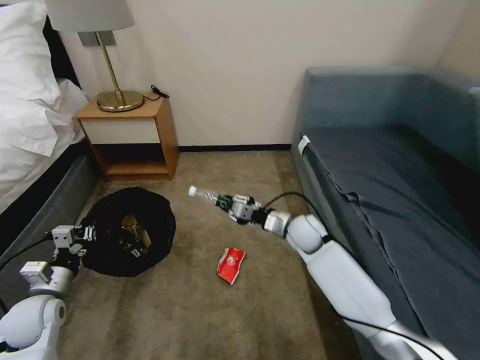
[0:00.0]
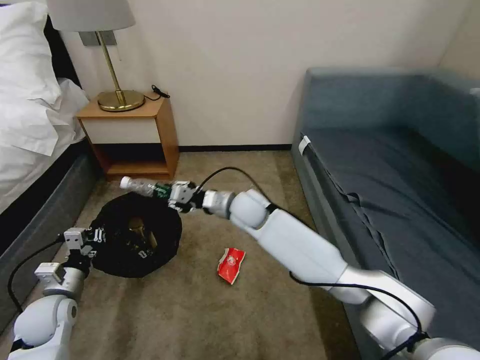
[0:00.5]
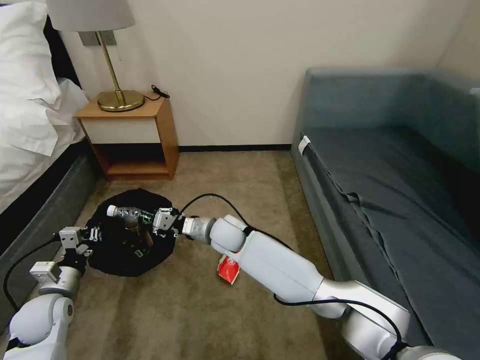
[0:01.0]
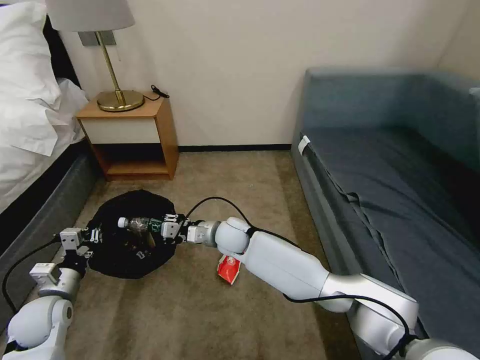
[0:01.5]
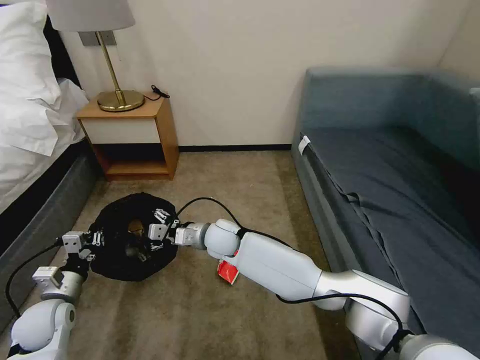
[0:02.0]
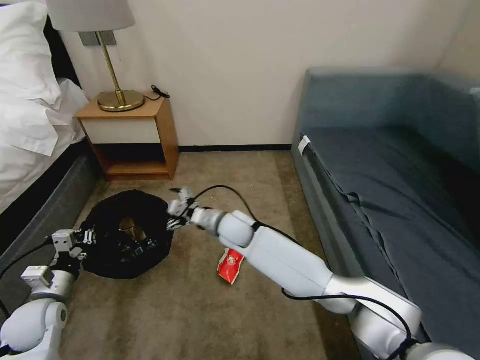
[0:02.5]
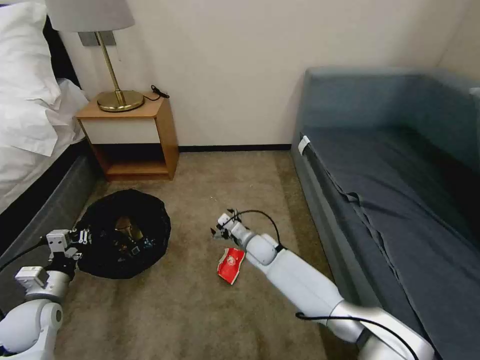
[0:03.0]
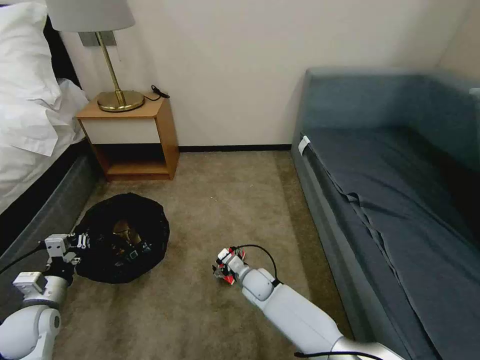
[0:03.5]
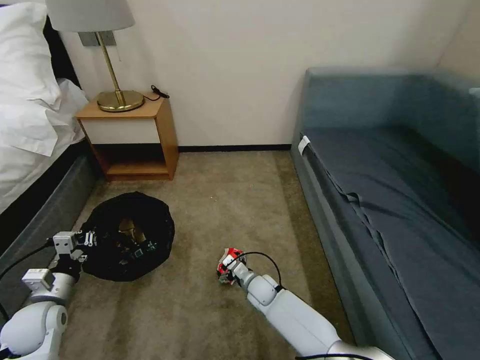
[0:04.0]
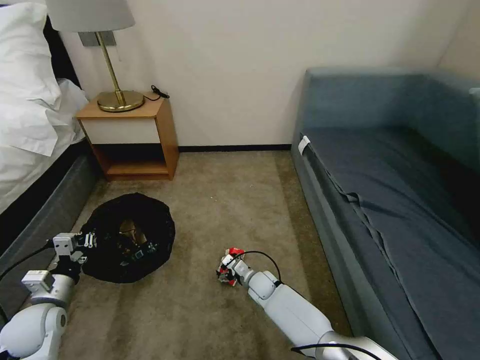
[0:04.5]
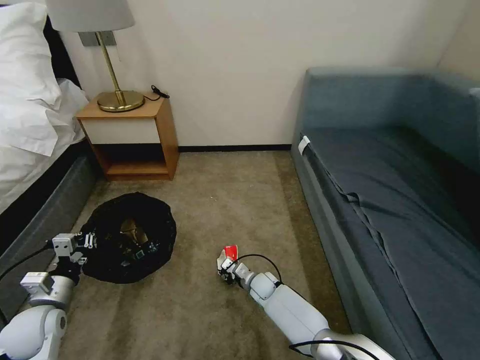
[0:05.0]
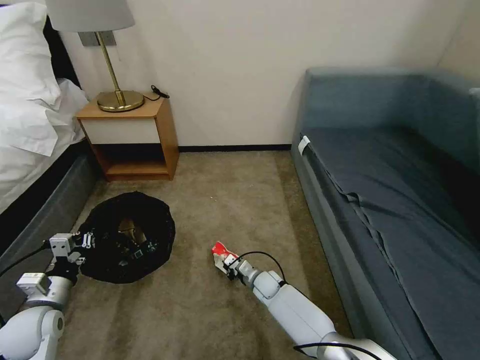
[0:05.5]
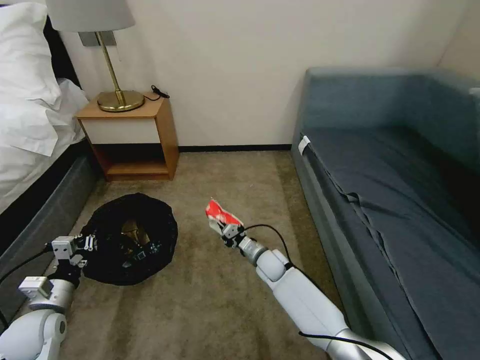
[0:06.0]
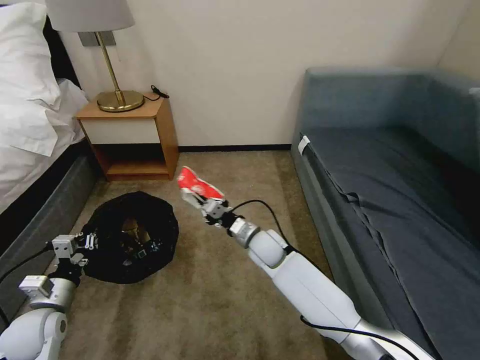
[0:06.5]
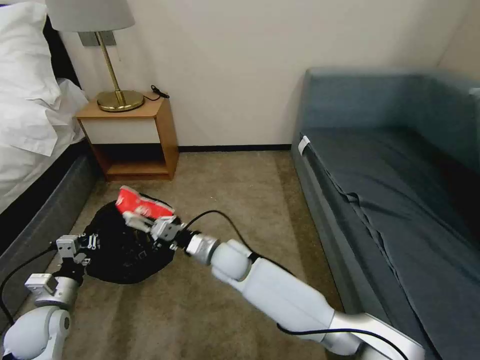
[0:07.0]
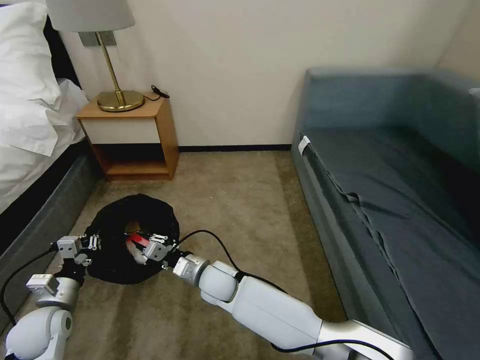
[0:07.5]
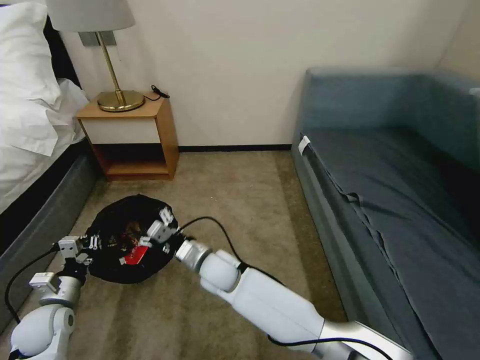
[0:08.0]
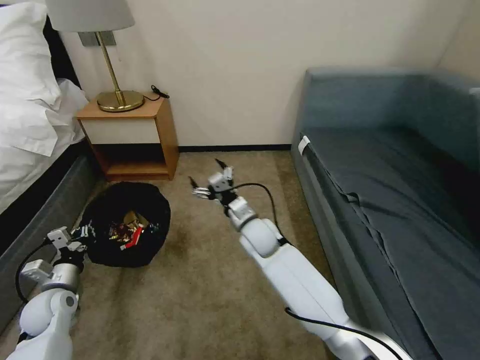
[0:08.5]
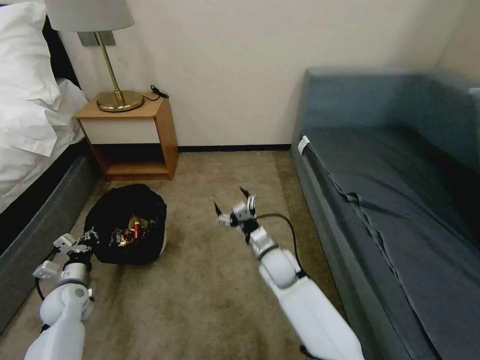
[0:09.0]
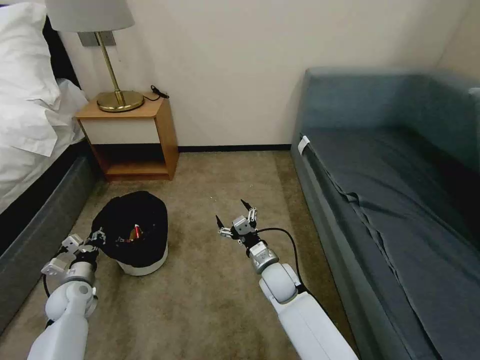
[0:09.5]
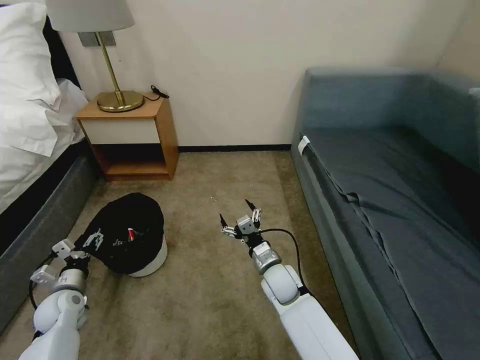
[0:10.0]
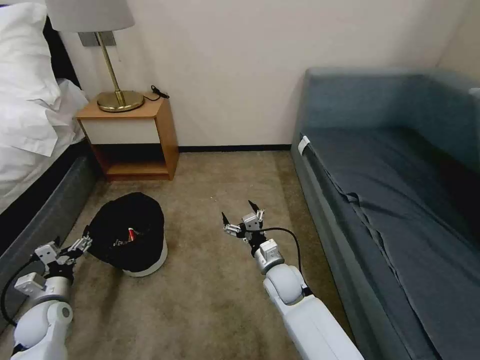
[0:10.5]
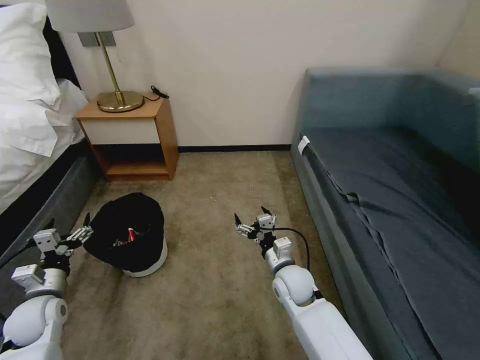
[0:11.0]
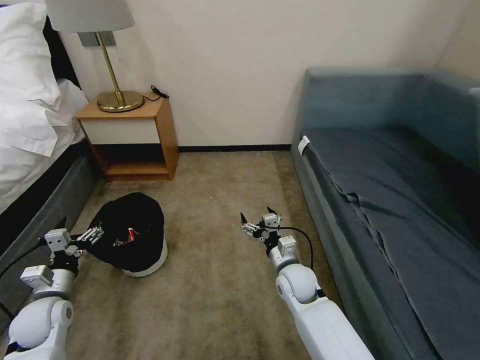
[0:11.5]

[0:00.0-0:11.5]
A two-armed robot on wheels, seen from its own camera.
Task of the whole recording: Pick up the trash bin, then pick up the garbage on the floor and place it into the trash bin.
0:00.0 to 0:02.0: The right gripper is displaced to the left by about 20 cm, and opens its fingers.
0:02.0 to 0:04.0: The right gripper heads downward and to the right, covering about 25 cm.
0:04.0 to 0:06.0: The right gripper goes approximately 10 cm upward and forward, and closes up.
0:06.0 to 0:07.5: The right gripper travels to the left, backward and upward by some 20 cm.
0:07.5 to 0:09.5: The right gripper is displaced to the right by roughly 15 cm, and opens its fingers. Meanwhile the left gripper goes roughly 10 cm forward and downward.
0:09.5 to 0:11.5: The left gripper heads upward and backward, covering about 10 cm, and opens up.

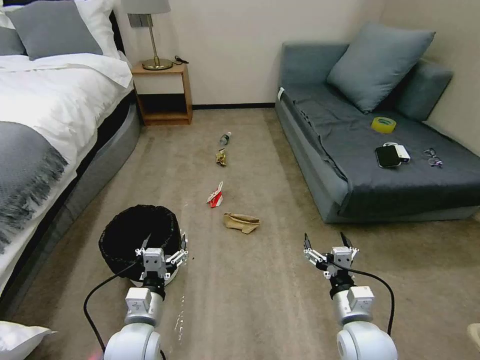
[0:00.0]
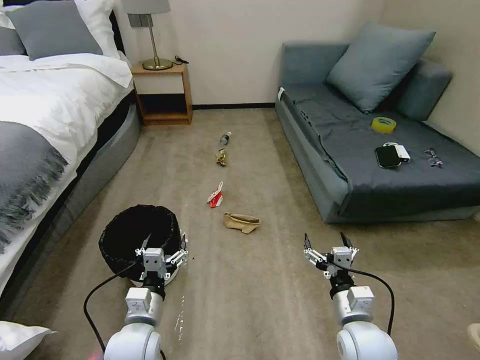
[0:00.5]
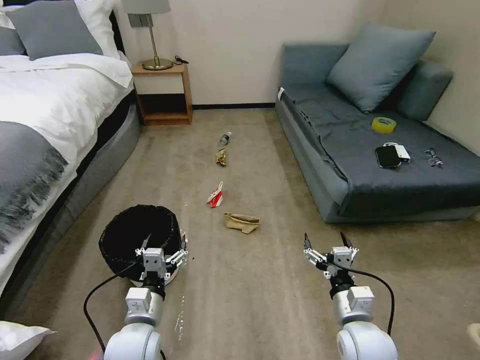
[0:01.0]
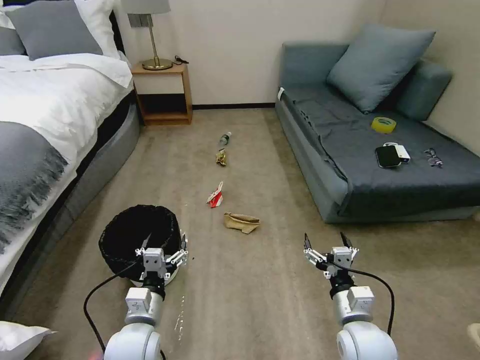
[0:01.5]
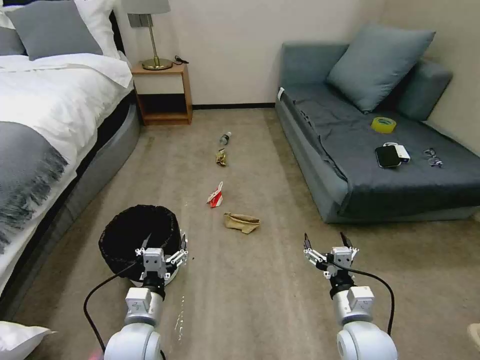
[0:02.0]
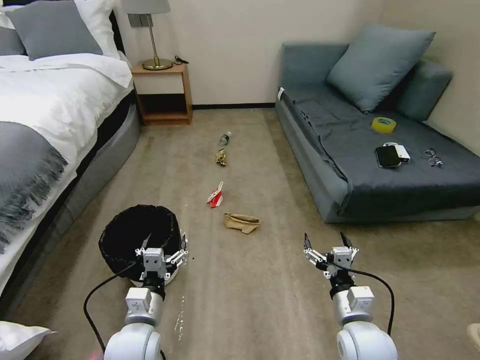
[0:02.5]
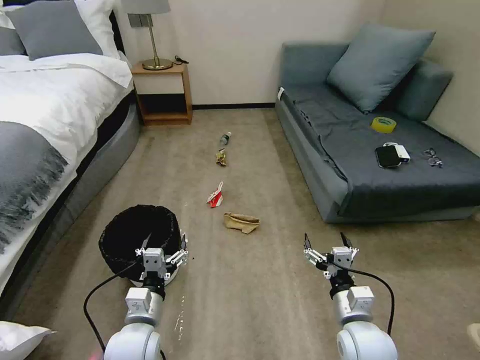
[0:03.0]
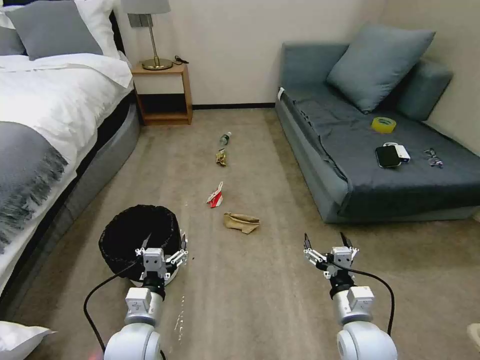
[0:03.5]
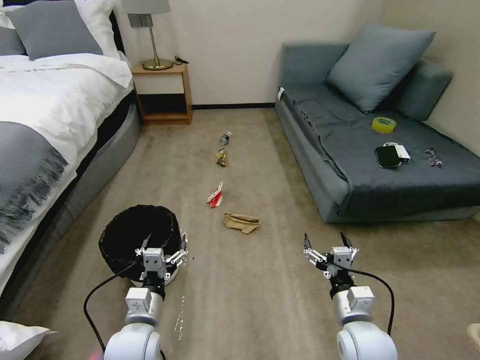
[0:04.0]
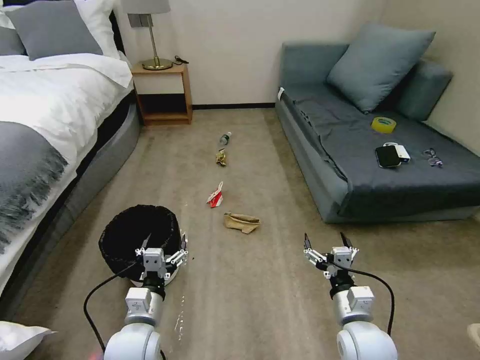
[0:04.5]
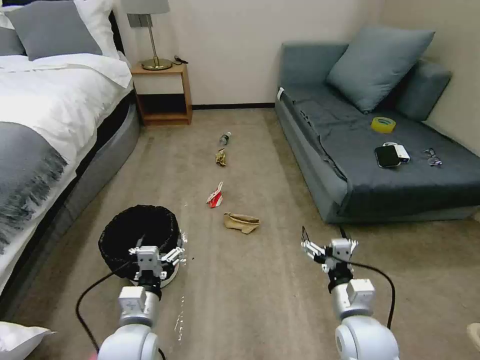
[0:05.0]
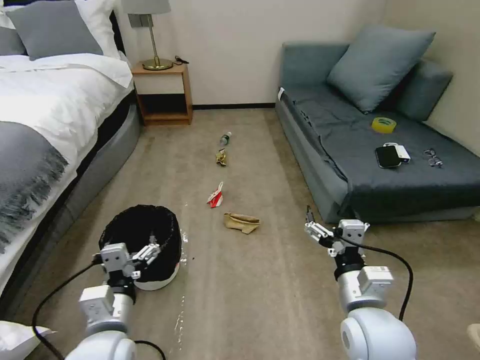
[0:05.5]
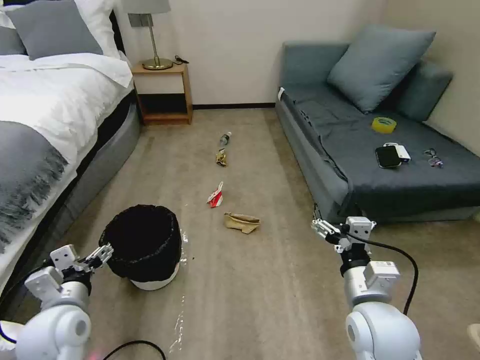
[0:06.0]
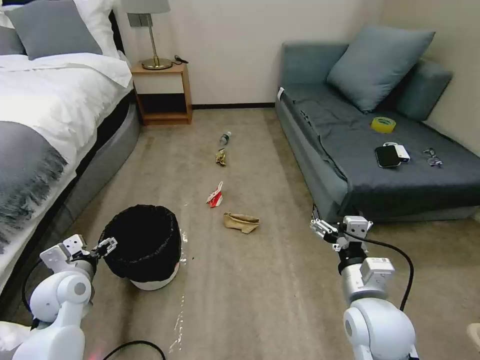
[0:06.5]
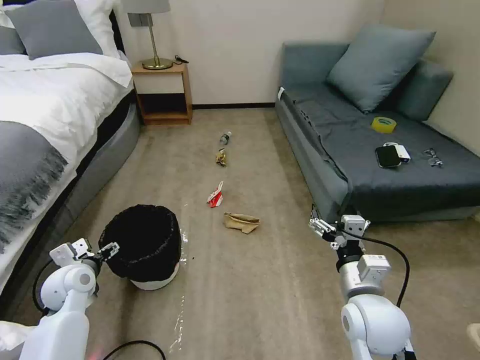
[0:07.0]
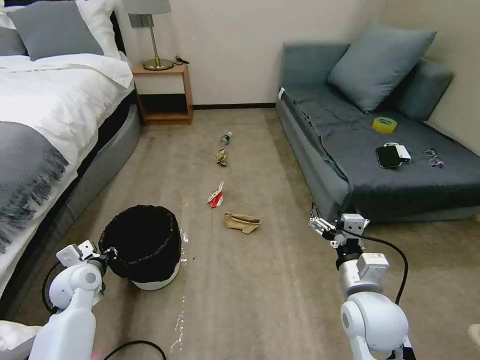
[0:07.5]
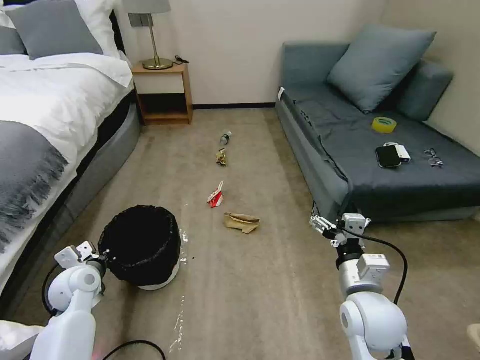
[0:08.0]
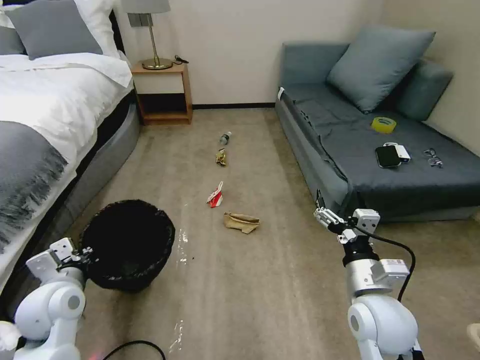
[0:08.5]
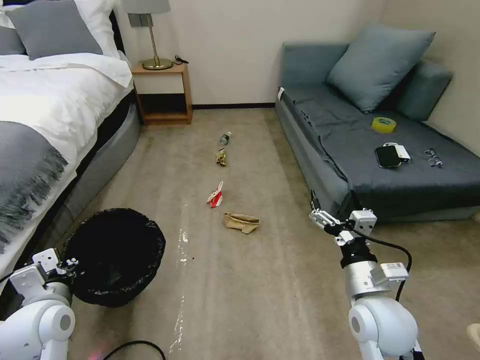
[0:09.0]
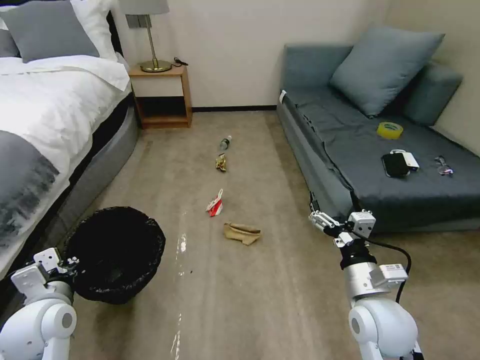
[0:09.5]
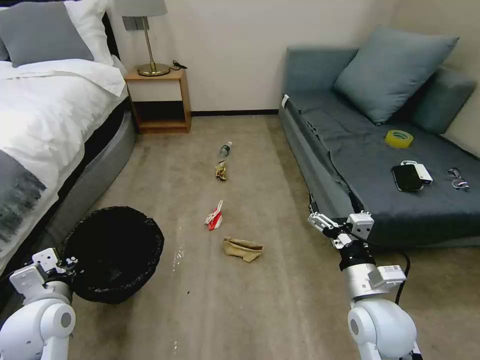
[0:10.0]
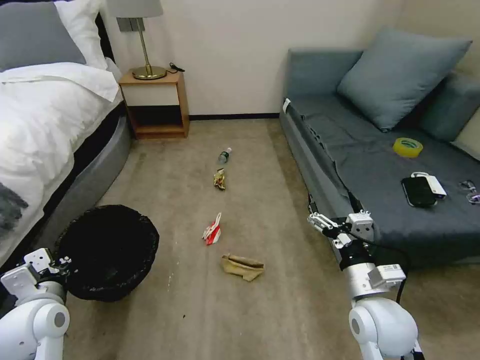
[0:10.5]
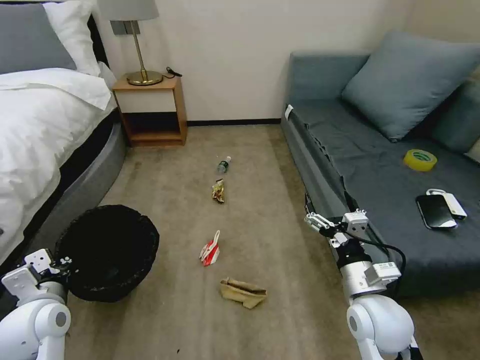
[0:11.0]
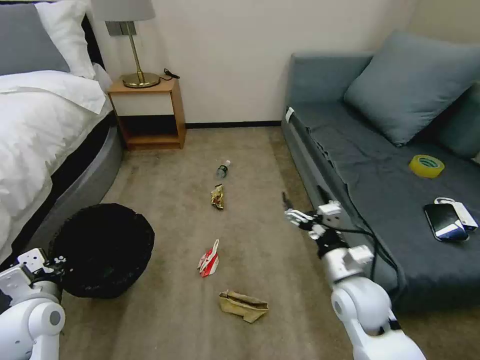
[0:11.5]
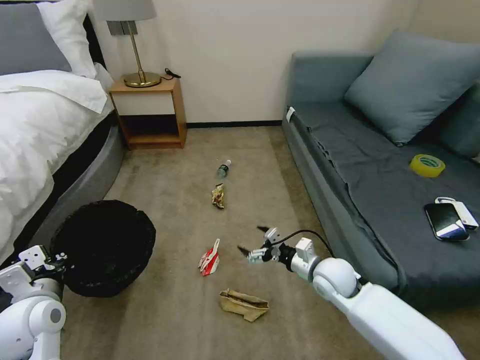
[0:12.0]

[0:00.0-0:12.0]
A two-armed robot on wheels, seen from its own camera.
Task of the whole recording: Pick up the trash bin, then pick up the garbage on the floor and place it into the trash bin.
0:02.0 to 0:04.0: The two grippers keep their place.
0:04.0 to 0:06.0: The right gripper travels upward by approximately 10 cm. The left gripper moves to the left and upward, roughly 15 cm.
0:06.0 to 0:08.0: The left gripper shifts some 15 cm forward, downward and to the left, and closes its fingers.
0:08.0 to 0:10.0: The left gripper travels backward and upward by roughly 10 cm.
0:10.0 to 0:12.0: The right gripper heads forward and downward, covering roughly 15 cm.

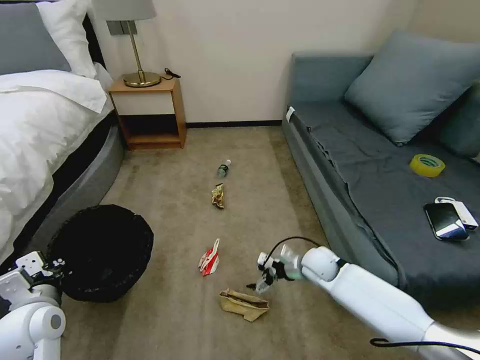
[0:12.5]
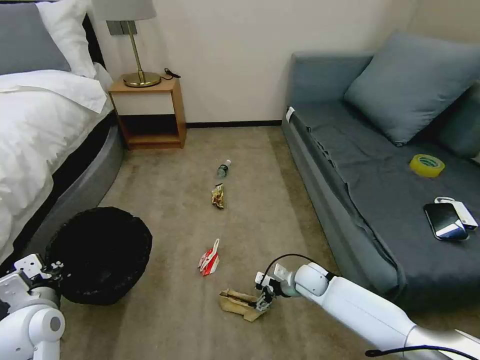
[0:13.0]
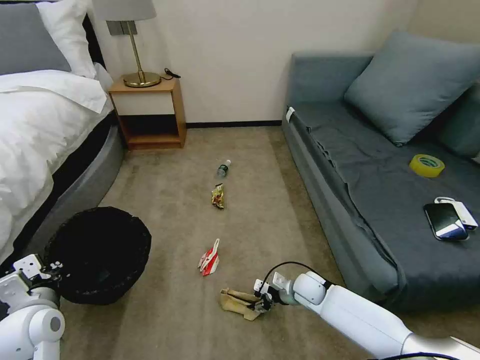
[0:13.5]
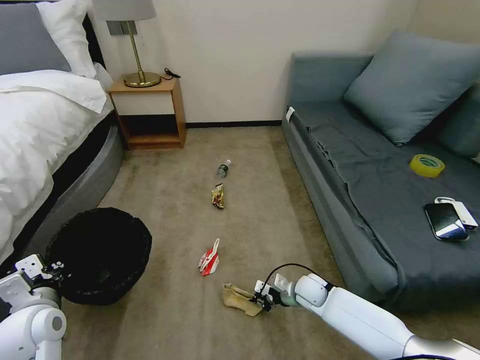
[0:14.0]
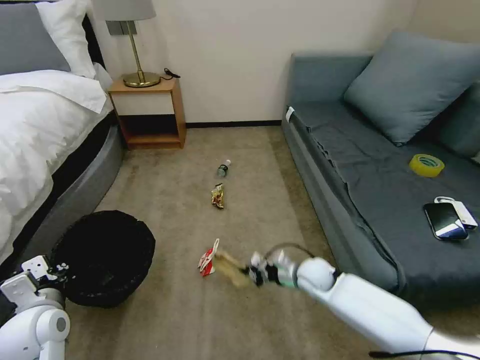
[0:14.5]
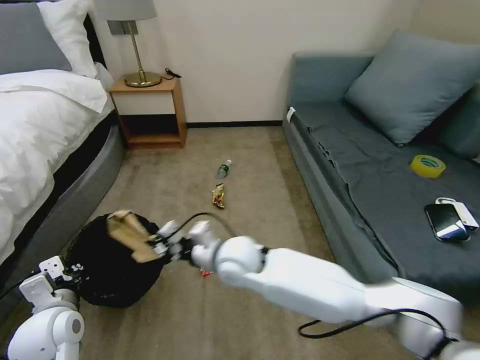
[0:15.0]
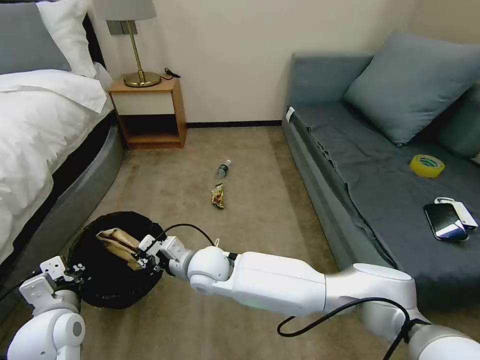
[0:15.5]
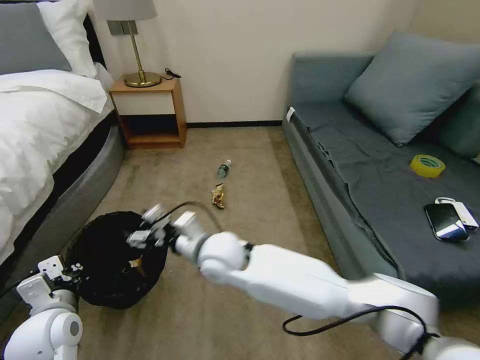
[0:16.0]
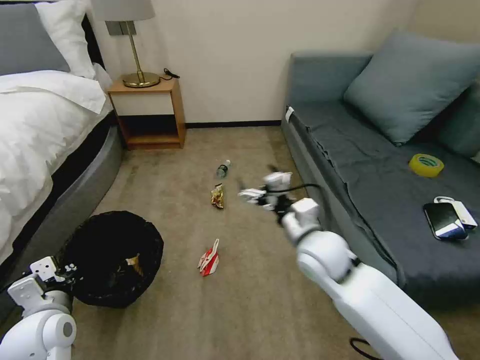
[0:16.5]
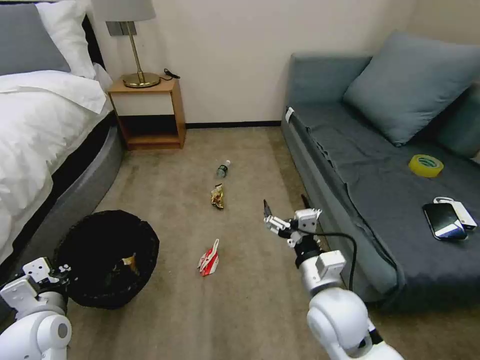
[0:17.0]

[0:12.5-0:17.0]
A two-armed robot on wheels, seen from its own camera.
Task of the whole recording: Pick up the trash bin, then pick up the garbage on the floor and place it into the trash bin.
0:12.5 to 0:14.5: The right gripper reaches some 10 cm downward, then returns, and closes.
0:14.5 to 0:17.0: The right gripper goes some 20 cm upward and backward, travels to the left and back again, about 30 cm each way, and opens.
